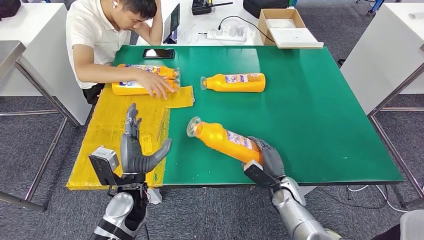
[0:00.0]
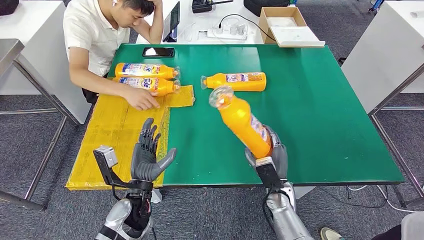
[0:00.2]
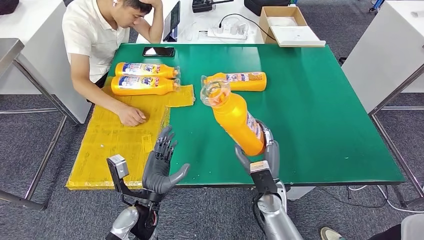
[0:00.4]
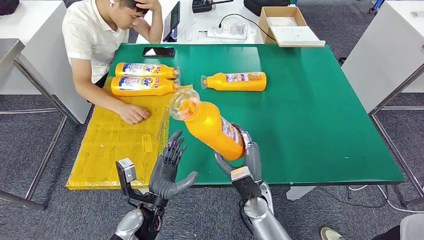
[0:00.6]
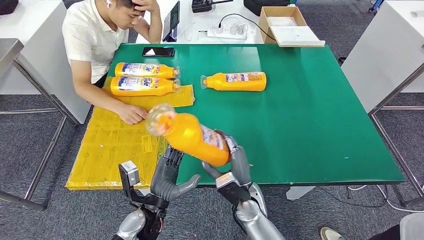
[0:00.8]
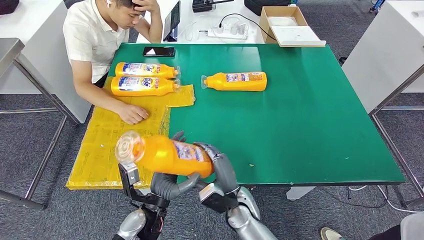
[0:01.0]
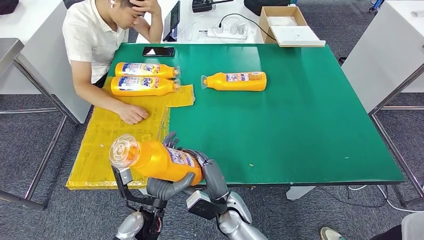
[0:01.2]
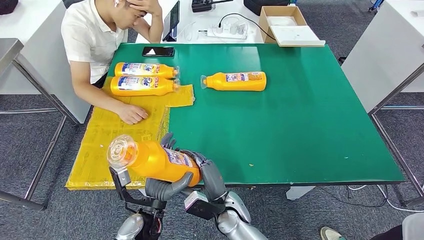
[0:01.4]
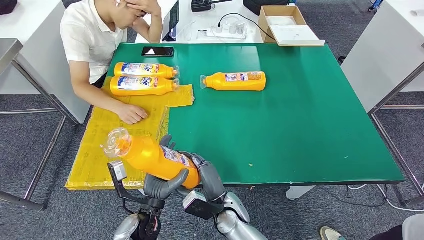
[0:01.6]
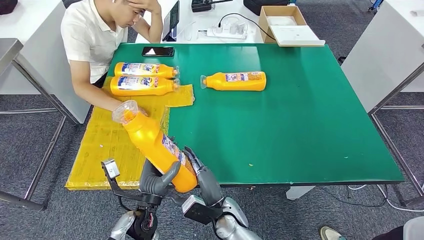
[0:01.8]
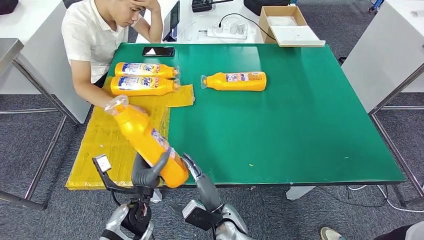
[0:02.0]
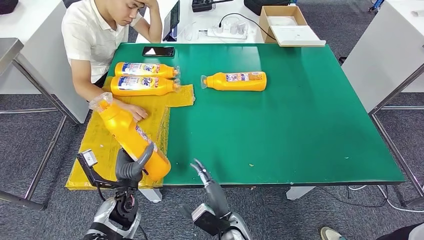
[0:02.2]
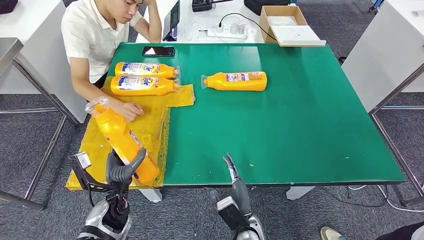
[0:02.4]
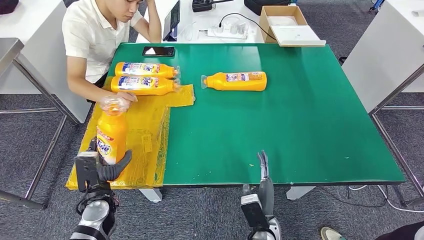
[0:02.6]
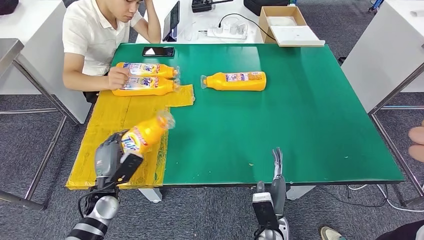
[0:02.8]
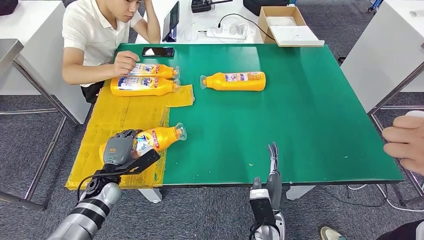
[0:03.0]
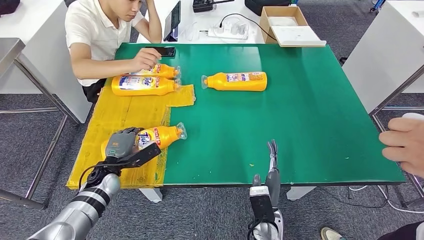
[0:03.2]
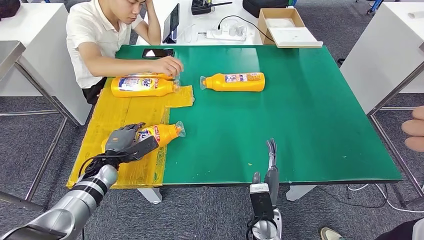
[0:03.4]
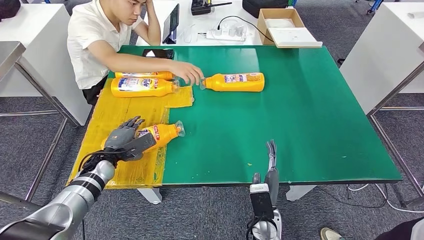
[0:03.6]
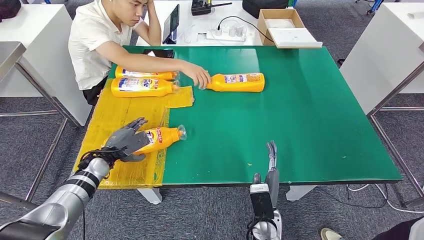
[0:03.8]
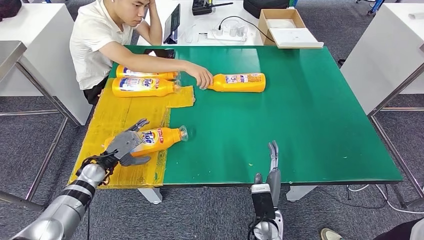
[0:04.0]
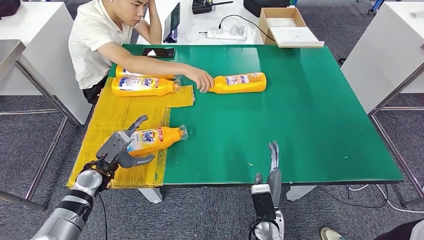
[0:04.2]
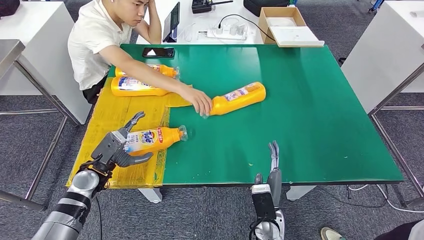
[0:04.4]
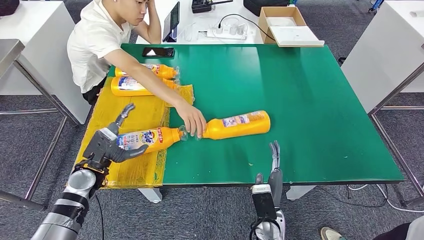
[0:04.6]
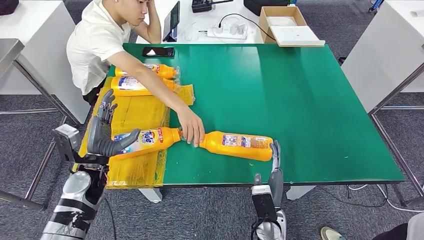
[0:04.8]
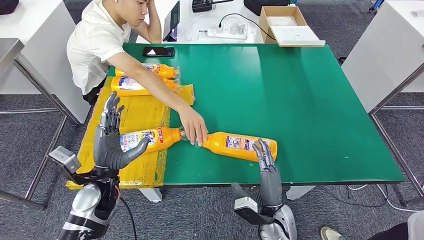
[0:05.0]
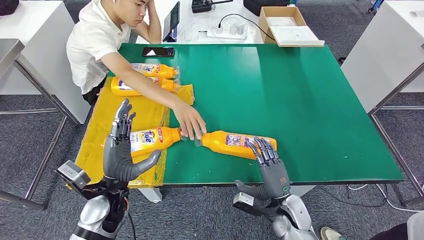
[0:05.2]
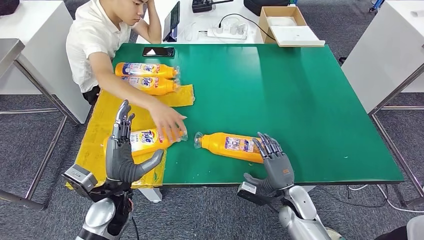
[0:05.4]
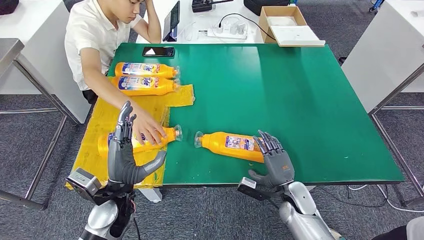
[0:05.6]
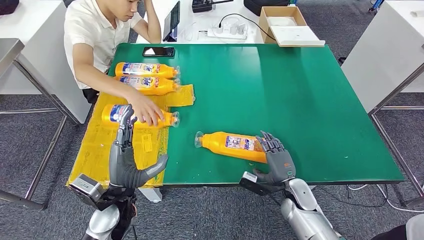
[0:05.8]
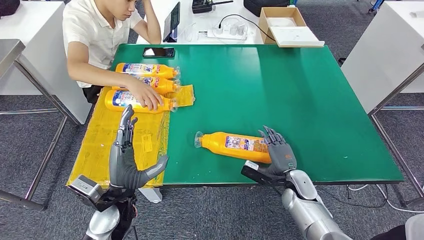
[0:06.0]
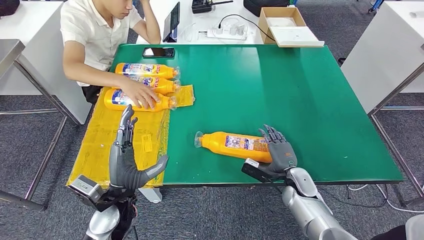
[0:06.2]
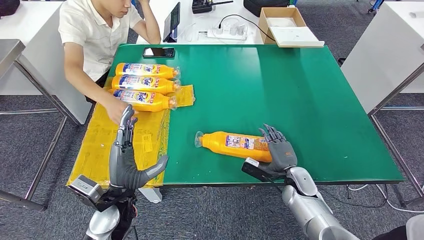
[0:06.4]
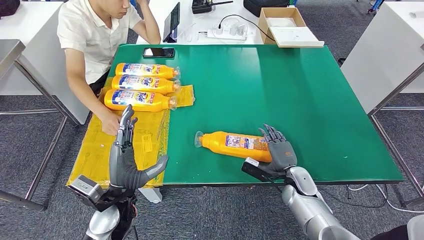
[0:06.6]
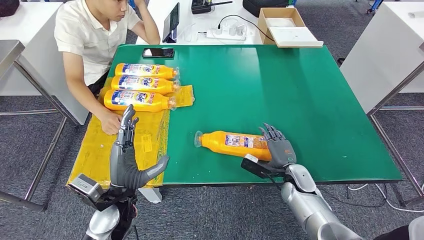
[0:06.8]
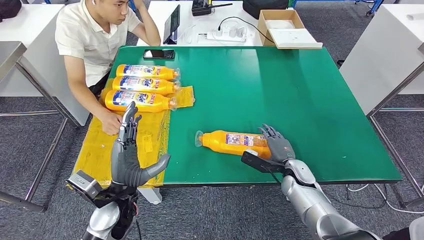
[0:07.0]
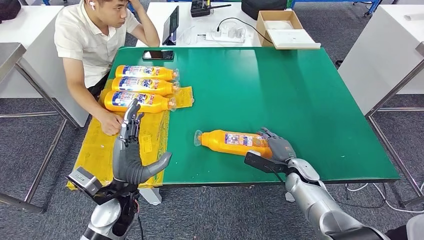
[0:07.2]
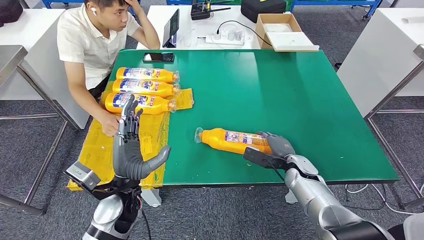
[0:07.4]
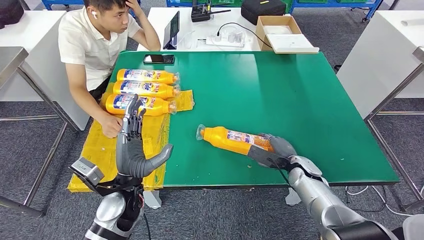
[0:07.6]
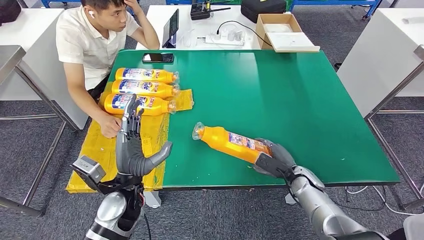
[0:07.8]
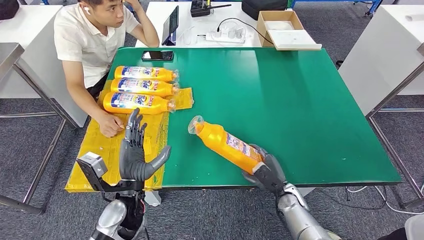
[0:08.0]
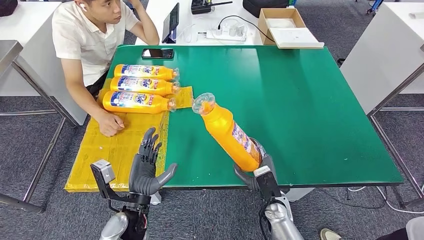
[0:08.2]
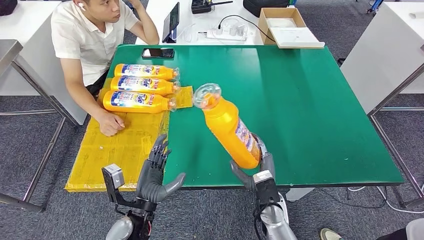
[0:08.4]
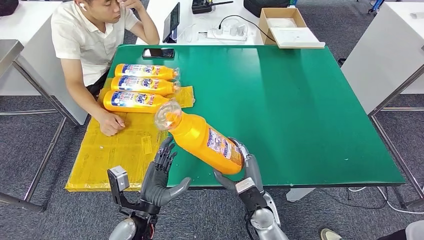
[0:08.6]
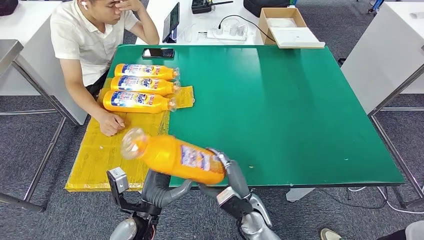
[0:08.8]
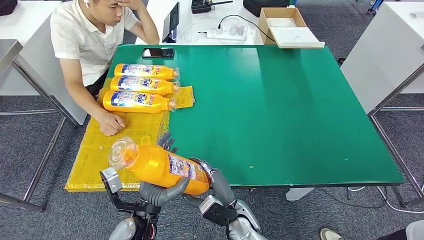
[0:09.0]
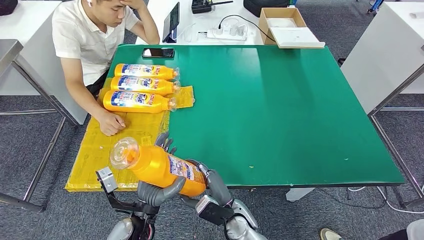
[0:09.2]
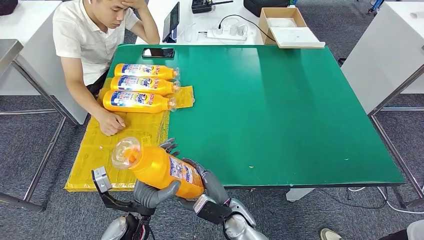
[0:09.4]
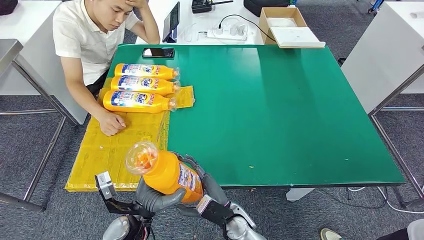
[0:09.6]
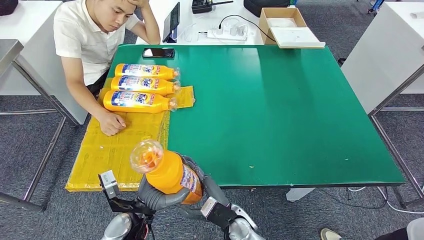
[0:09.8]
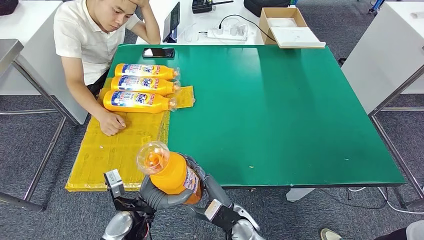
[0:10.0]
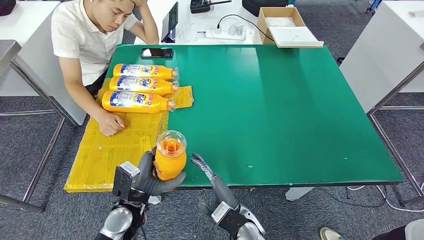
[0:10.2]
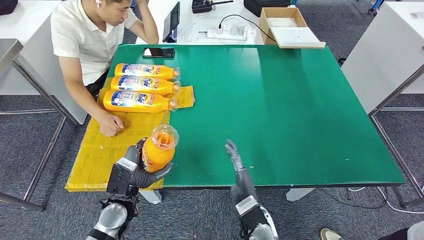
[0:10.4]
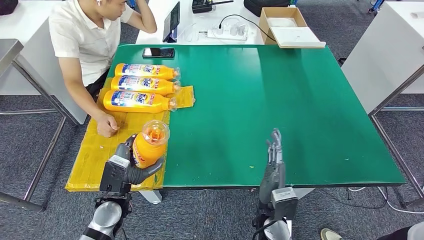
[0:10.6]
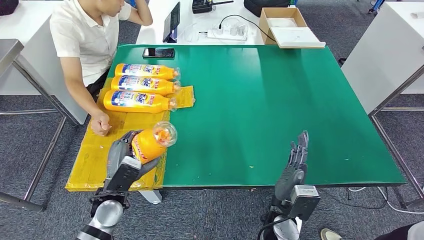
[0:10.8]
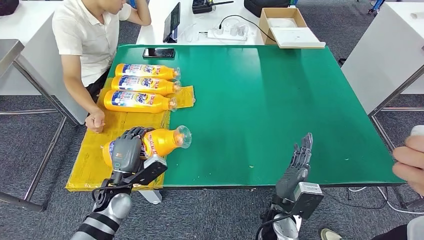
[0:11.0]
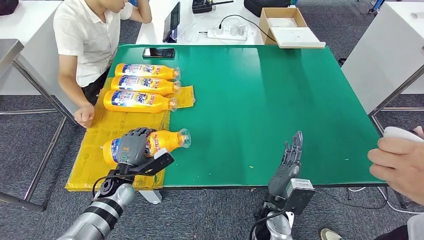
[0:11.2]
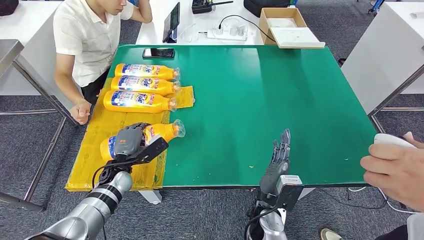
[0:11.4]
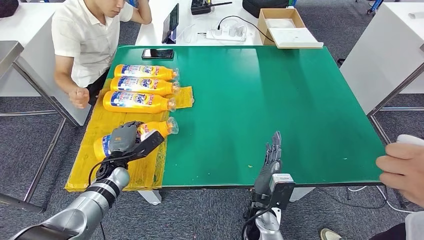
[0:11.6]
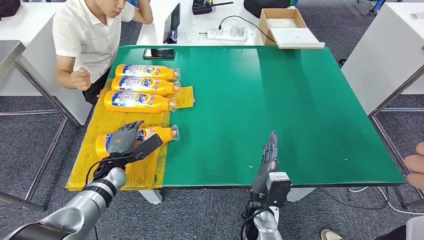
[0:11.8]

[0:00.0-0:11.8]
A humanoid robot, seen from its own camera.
Step, 0:00.4 to 0:03.6: Flip the bottle to face forward.
Step, 0:03.8 to 0:08.2: Pick up the bottle from the table.
0:01.4 to 0:03.0: The left hand is displaced to the left and forward by some 20 cm. The right hand is displaced to the right by roughly 10 cm.
0:08.8 to 0:10.4: The left hand travels to the left by roughly 5 cm.
0:10.4 to 0:11.8: The left hand goes approximately 10 cm forward and to the left.

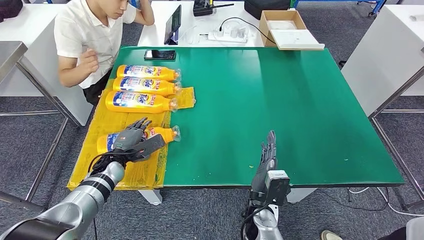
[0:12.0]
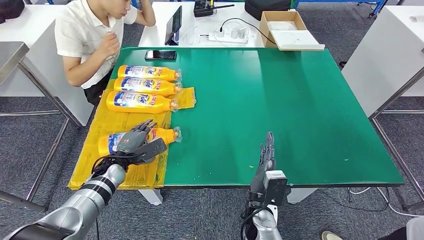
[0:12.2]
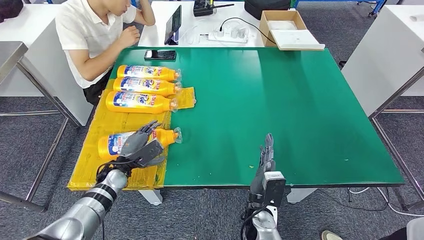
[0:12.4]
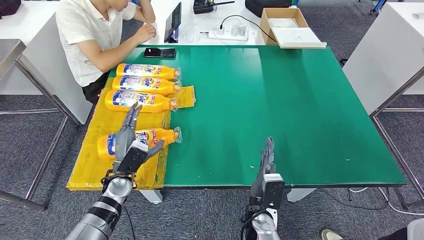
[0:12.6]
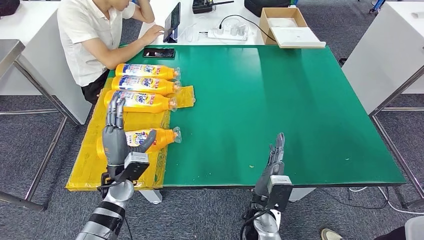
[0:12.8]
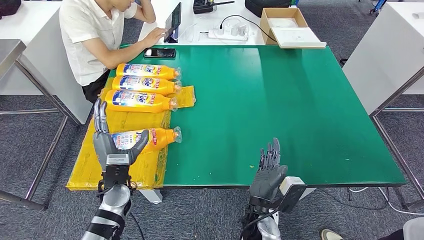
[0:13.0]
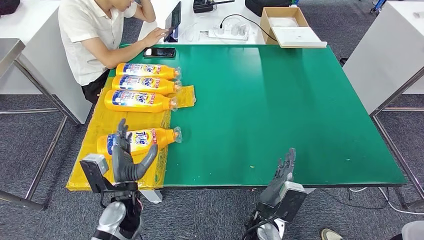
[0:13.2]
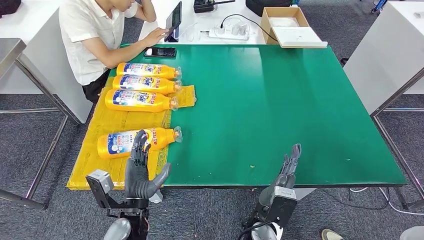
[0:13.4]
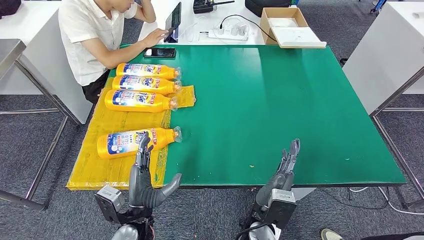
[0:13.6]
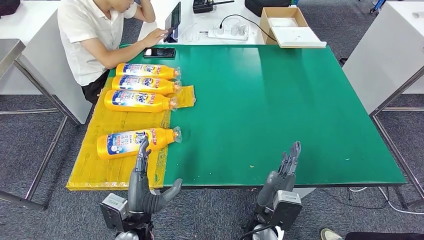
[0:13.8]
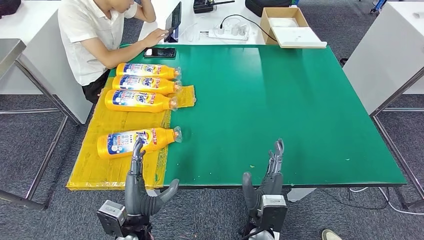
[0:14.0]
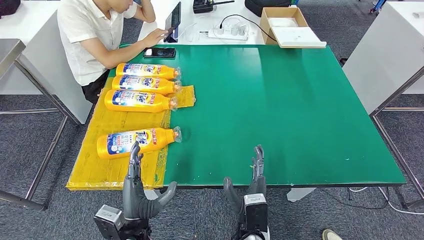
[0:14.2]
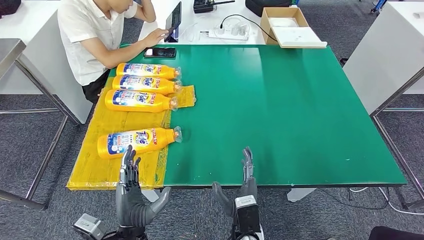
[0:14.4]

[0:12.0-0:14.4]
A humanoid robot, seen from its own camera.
Step, 0:12.0 to 0:14.4: Flip the bottle to face forward.
0:13.2 to 0:14.4: The left hand heads backward, covering some 10 cm; the right hand ends up approximately 5 cm from where it was.

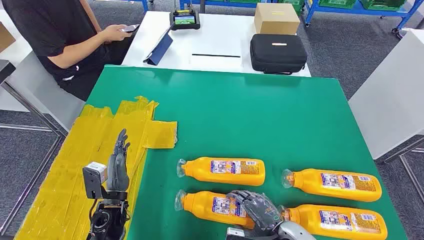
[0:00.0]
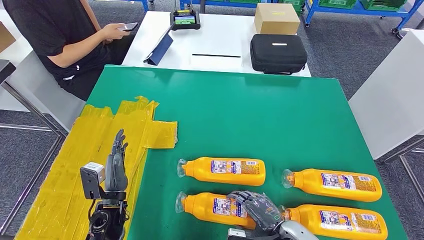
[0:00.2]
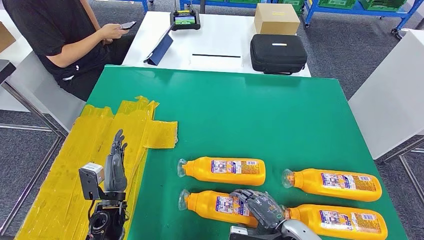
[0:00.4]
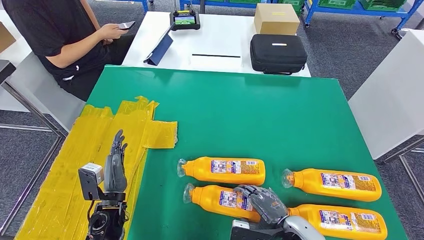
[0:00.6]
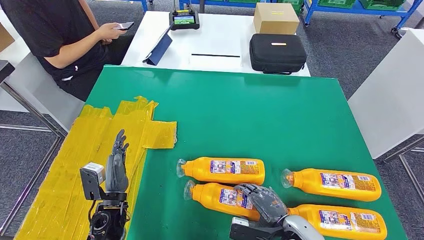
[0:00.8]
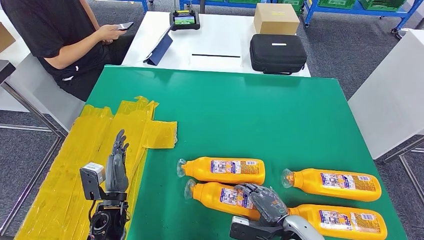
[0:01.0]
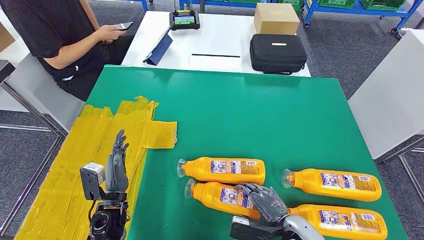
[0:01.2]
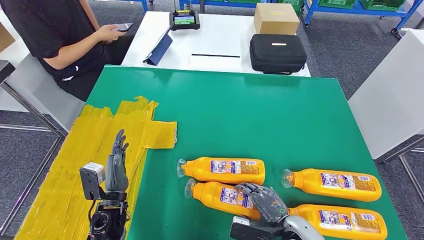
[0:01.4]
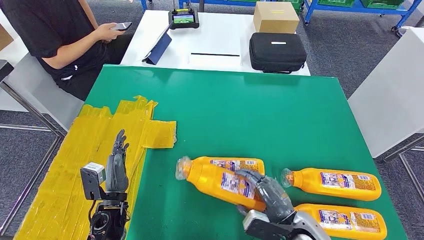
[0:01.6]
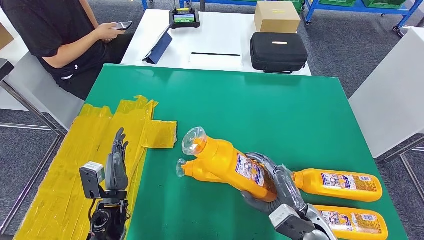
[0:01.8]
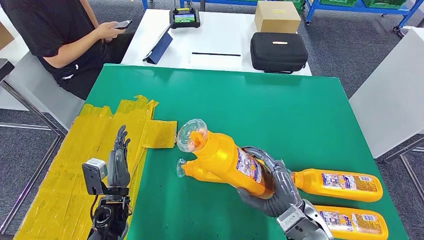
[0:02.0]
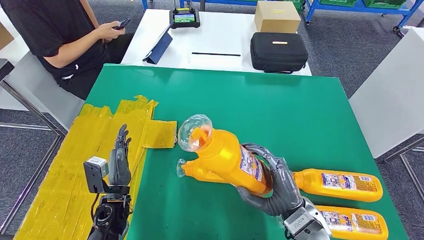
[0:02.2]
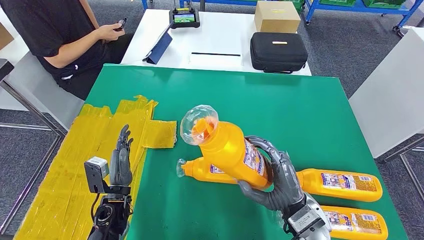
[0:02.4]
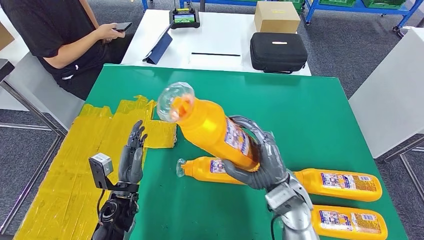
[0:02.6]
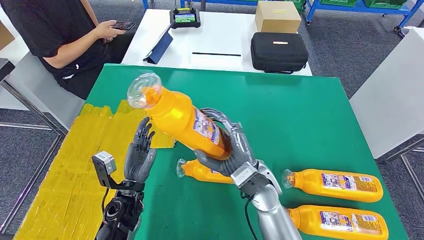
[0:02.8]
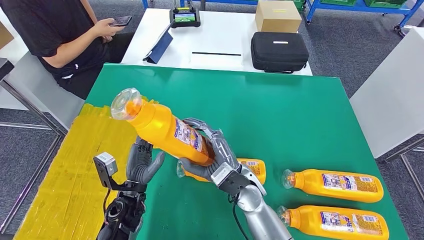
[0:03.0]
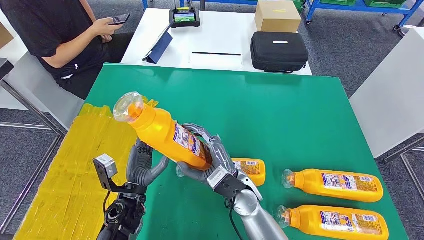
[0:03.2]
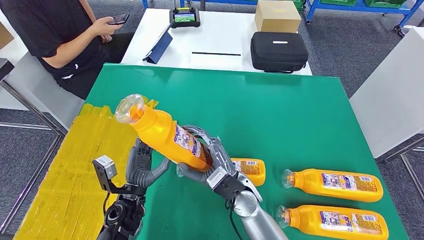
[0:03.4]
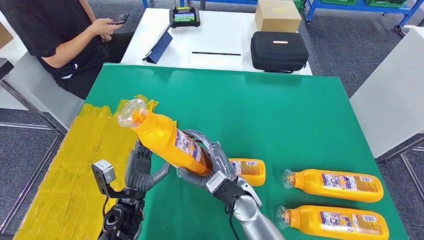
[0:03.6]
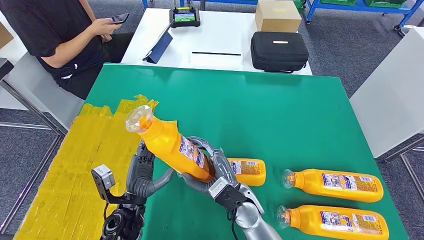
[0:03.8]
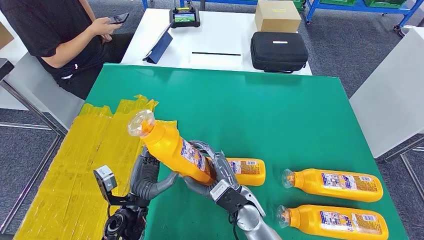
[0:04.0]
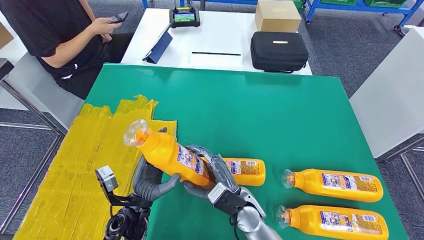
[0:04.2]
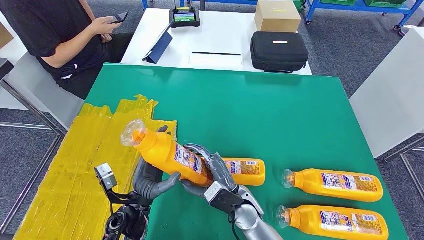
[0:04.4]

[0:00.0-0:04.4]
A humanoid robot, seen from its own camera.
Step, 0:00.0 to 0:03.0: Take the bottle from the table.
0:03.0 to 0:04.4: The right hand shifts approximately 5 cm downward.
